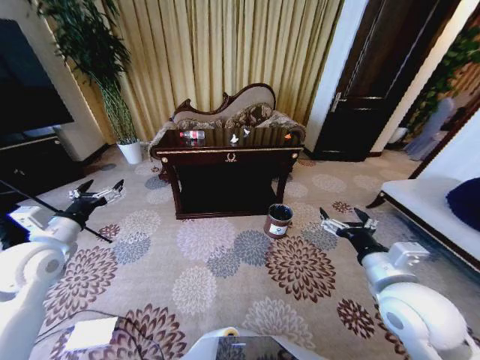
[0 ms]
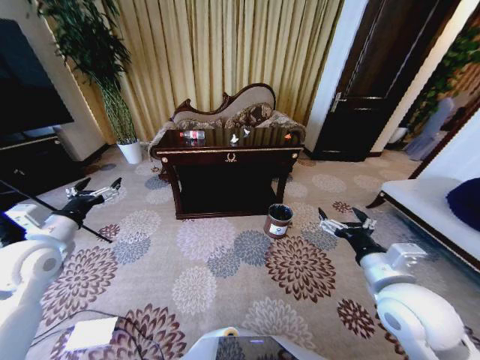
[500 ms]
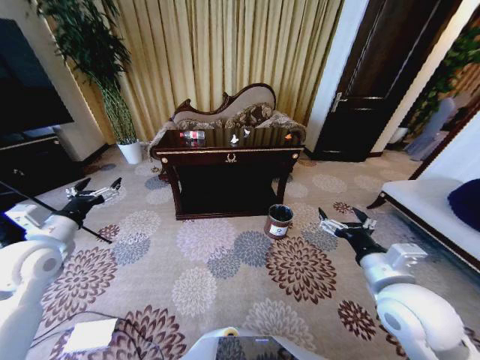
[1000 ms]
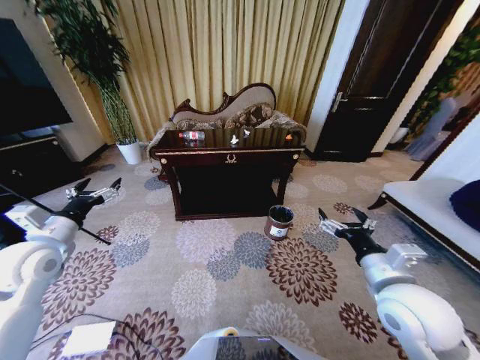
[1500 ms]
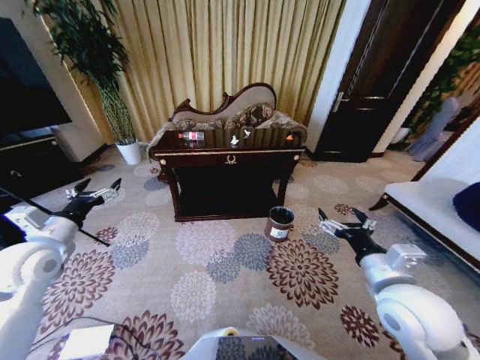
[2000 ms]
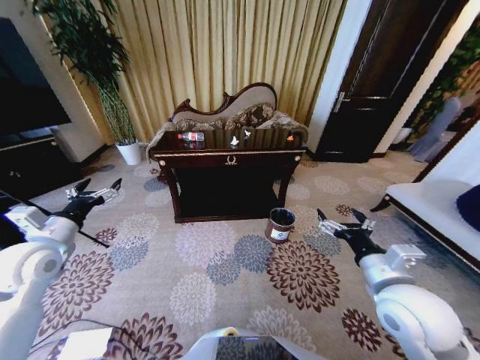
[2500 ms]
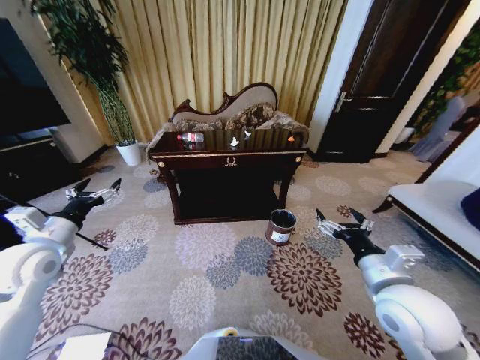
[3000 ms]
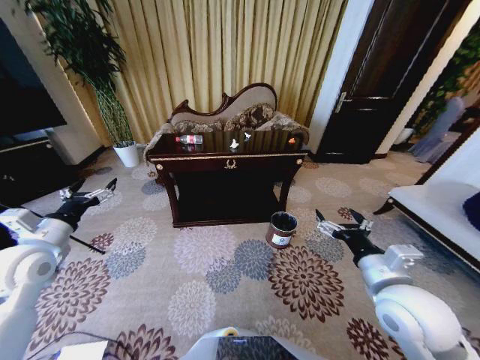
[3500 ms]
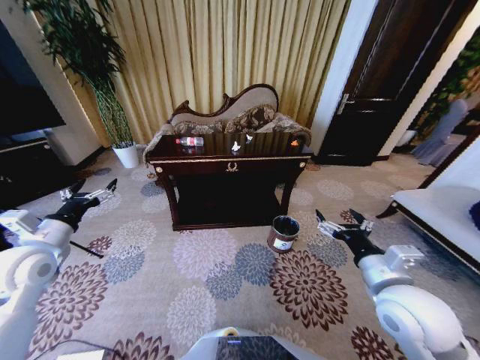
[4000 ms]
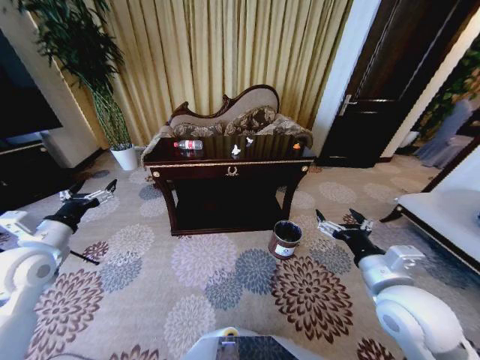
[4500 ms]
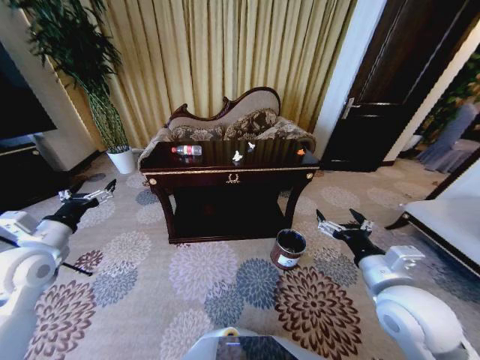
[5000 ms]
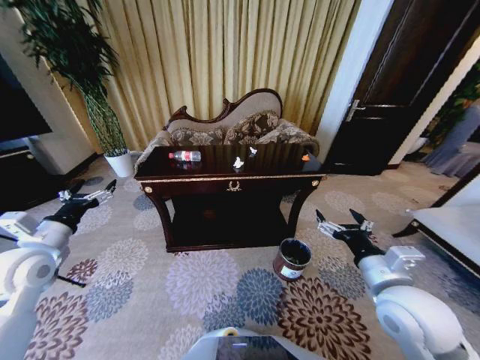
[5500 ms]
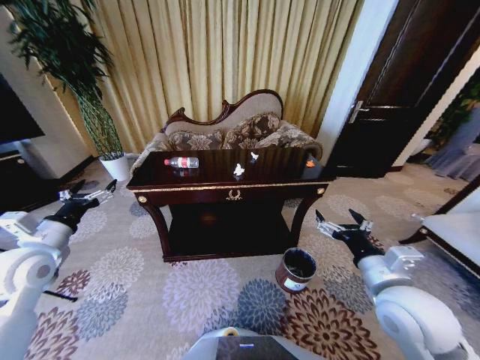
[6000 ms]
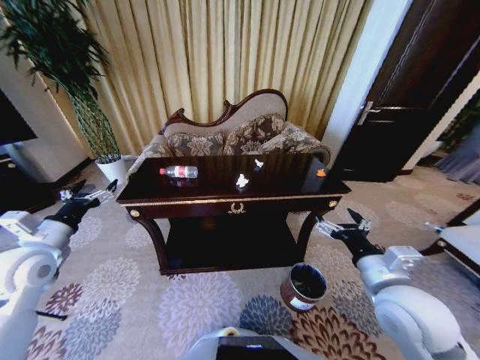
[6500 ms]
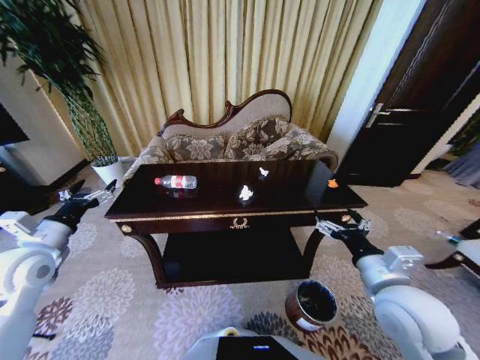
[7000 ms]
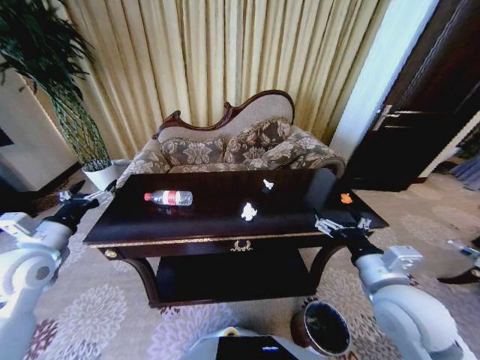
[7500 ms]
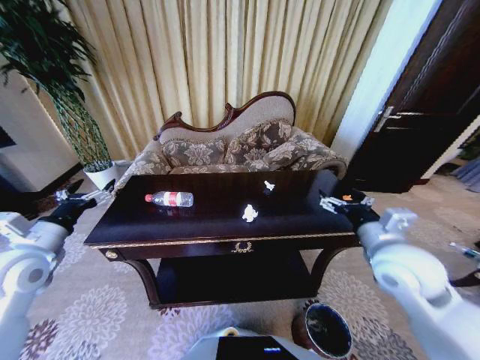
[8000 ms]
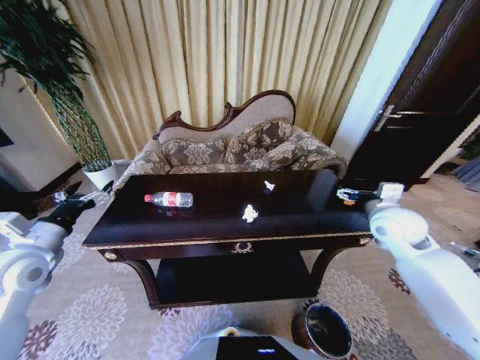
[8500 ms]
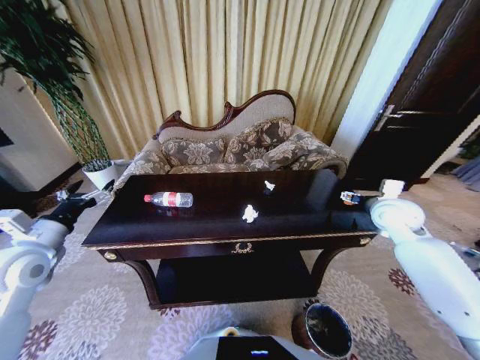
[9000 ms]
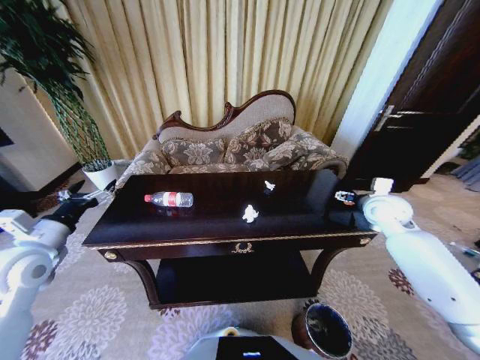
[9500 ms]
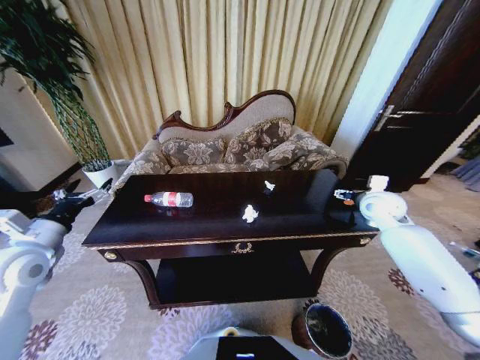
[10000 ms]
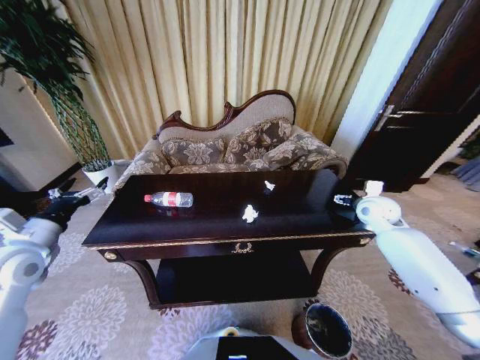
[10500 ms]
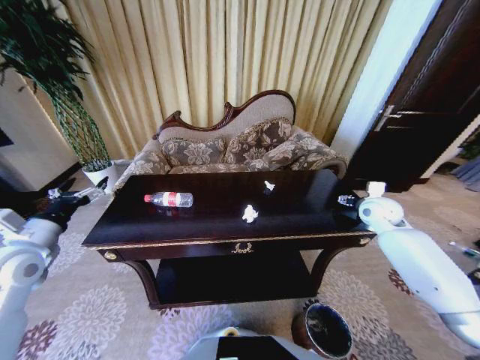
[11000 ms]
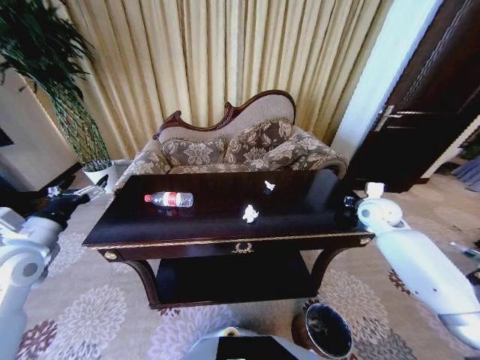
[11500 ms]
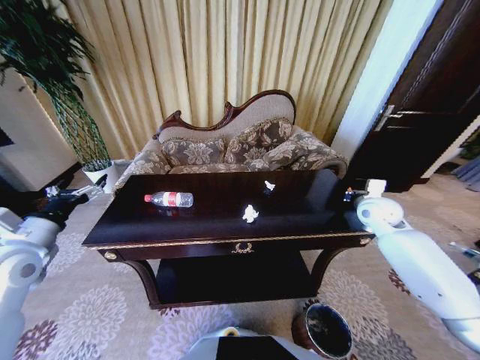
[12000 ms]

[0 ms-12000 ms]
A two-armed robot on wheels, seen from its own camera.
Task of the whole recording: Move to the front of the table and place the trash on the table into the trash bin.
6000 ms to 8000 ms: The right gripper is displaced forward by some 5 cm.
8000 ms to 10000 ms: The right gripper moves forward and to the right, about 20 cm.
10000 ms to 12000 ms: The right gripper closes up.

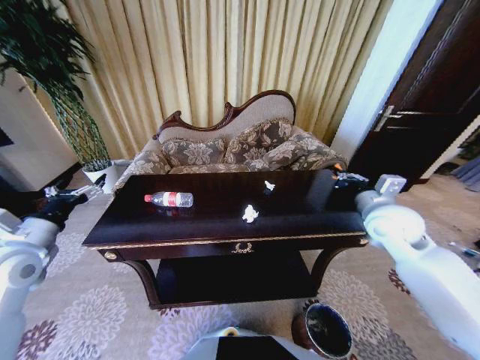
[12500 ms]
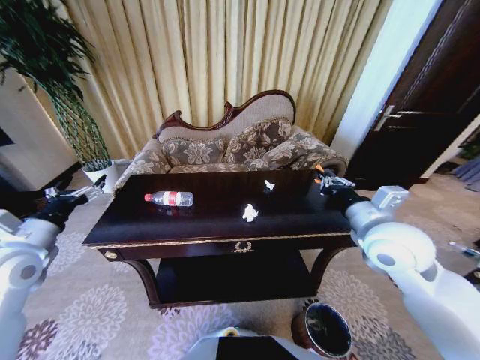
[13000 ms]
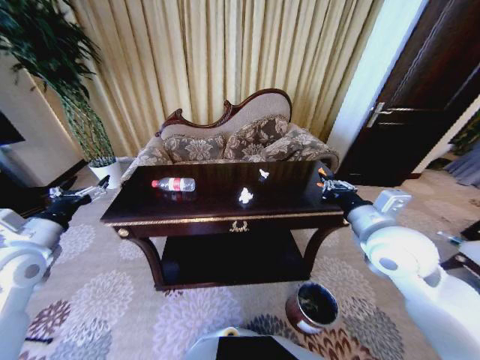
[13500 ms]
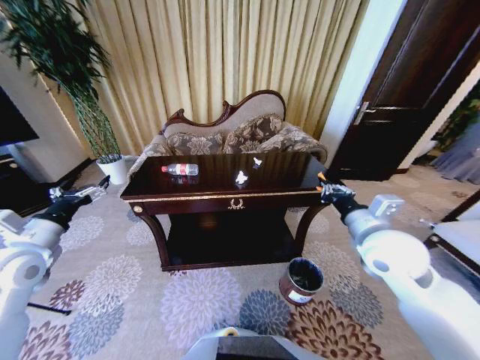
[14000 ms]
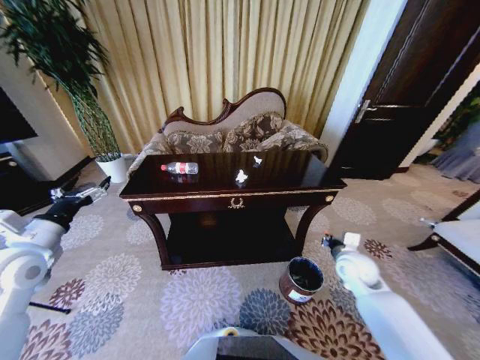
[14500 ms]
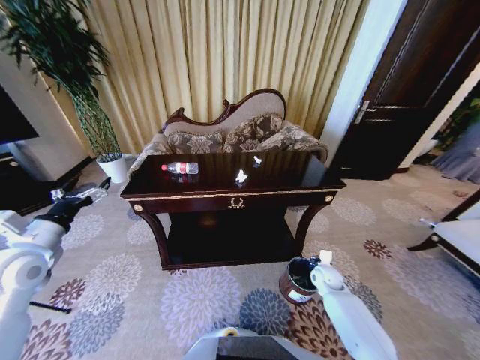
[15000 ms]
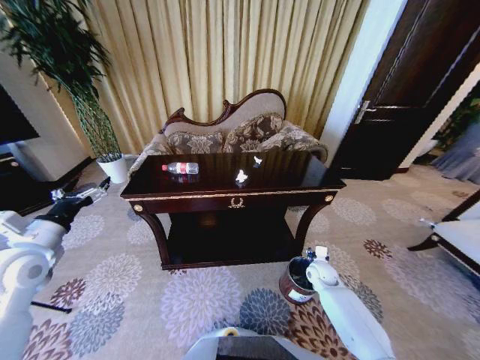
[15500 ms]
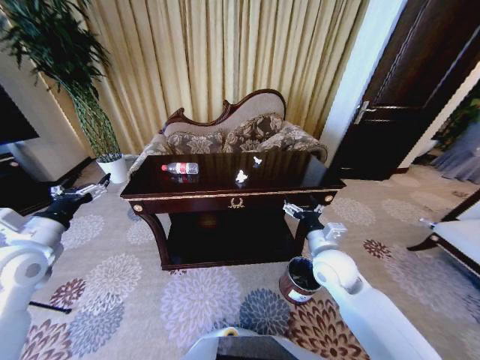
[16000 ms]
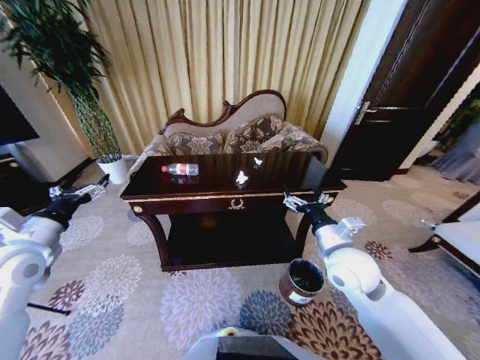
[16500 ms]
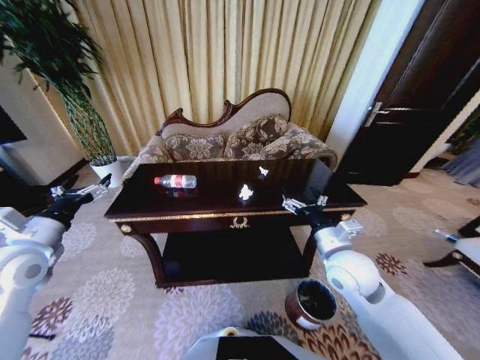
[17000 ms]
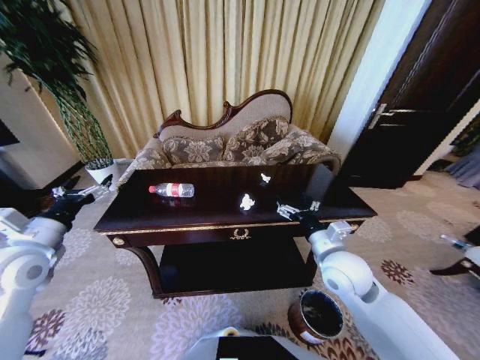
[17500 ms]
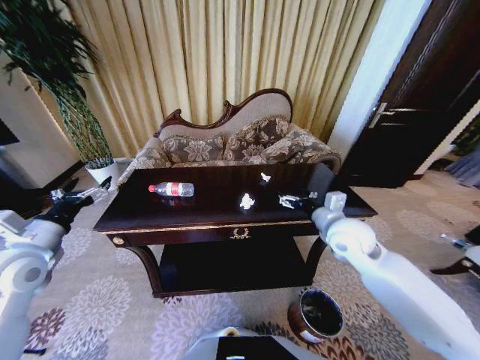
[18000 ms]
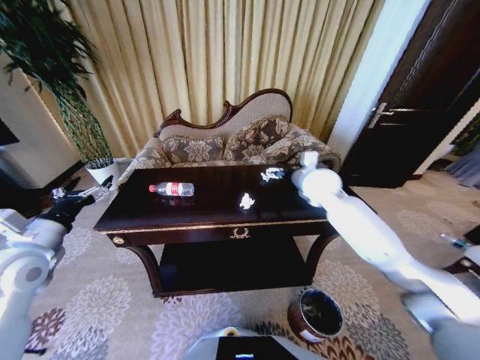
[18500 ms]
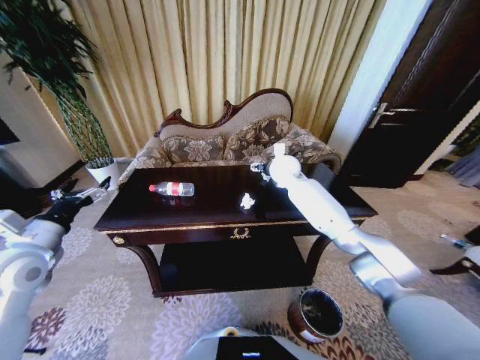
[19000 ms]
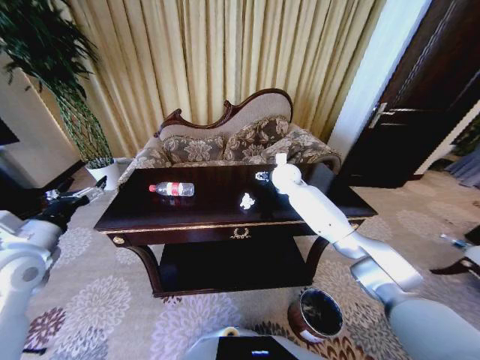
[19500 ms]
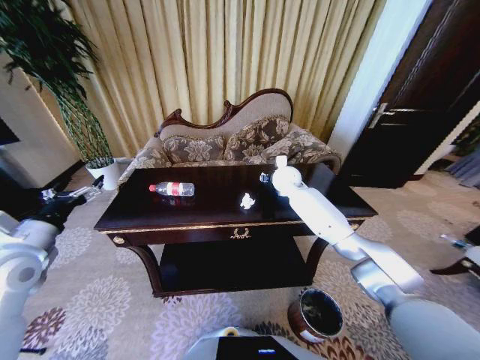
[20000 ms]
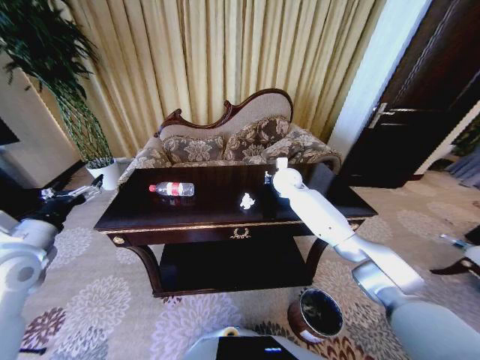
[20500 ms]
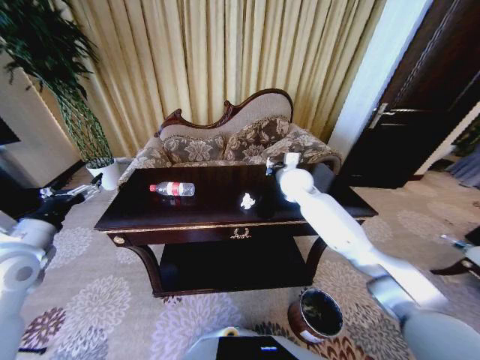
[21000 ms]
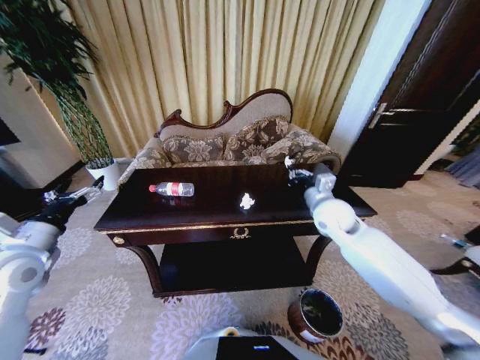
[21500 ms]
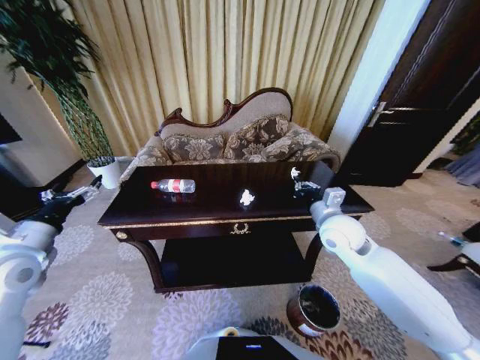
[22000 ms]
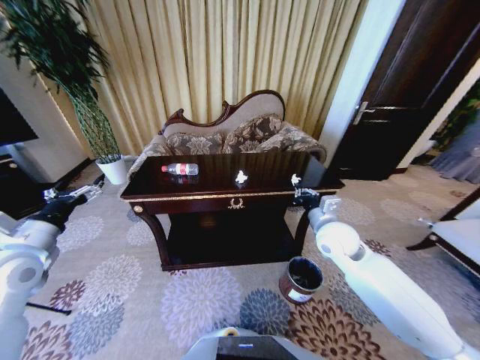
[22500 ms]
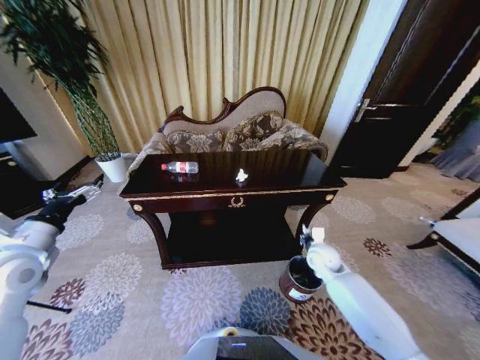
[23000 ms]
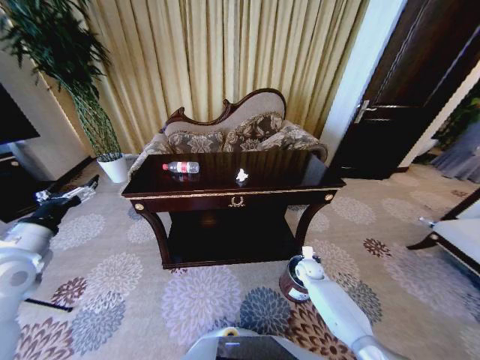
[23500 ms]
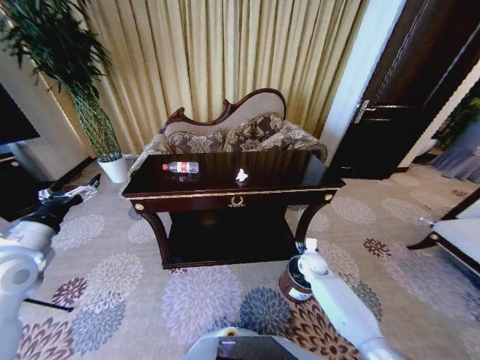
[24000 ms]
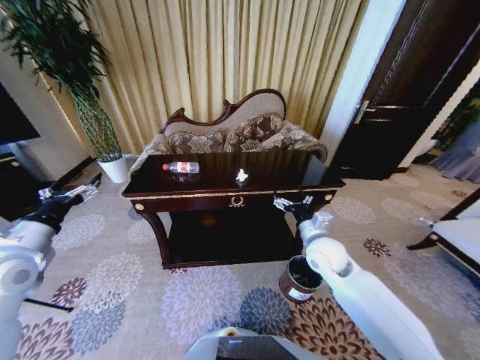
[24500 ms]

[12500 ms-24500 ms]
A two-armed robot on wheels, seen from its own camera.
Task of the whole recording: Move to the front of the table and place the trash on the table into the trash bin.
12500 ms to 14500 ms: The right gripper shifts roughly 20 cm downward.
14500 ms to 16500 ms: The right gripper travels upward and to the left by roughly 15 cm, and opens.
16500 ms to 18500 ms: The right gripper moves forward, approximately 20 cm.
18500 ms to 20500 ms: The right gripper shifts about 15 cm forward, downward and to the left, and closes up.
20500 ms to 22500 ms: The right gripper goes roughly 25 cm backward.
22500 ms to 24500 ms: The right gripper goes downward and returns, roughly 30 cm each way, and opens.

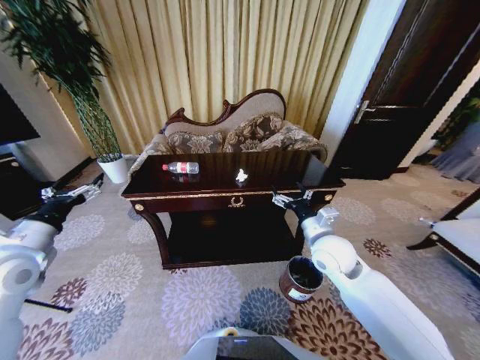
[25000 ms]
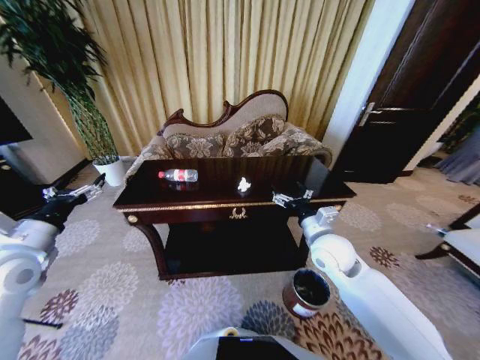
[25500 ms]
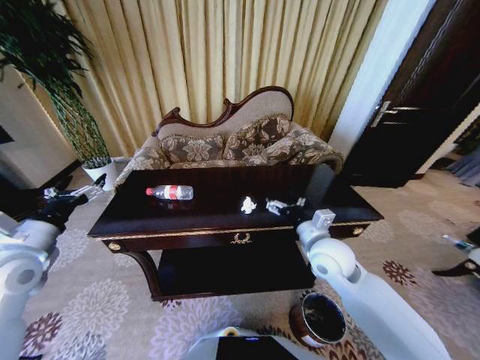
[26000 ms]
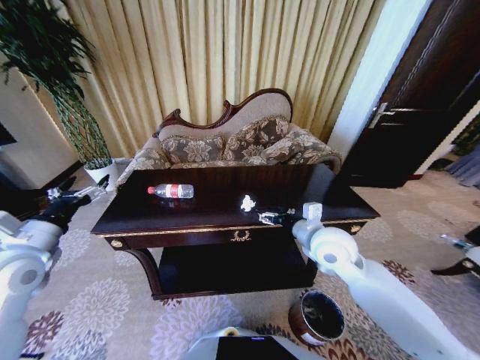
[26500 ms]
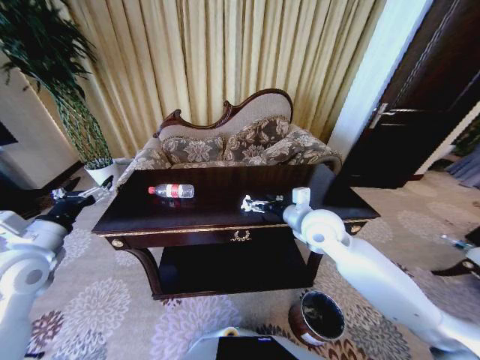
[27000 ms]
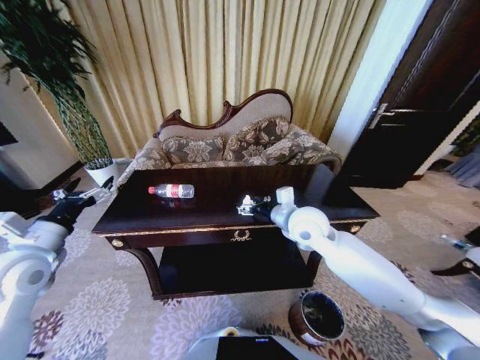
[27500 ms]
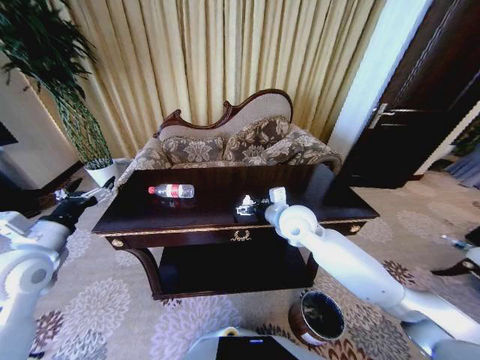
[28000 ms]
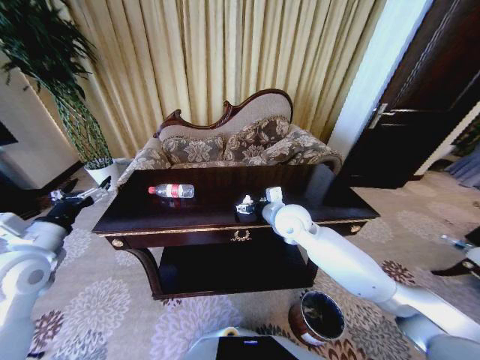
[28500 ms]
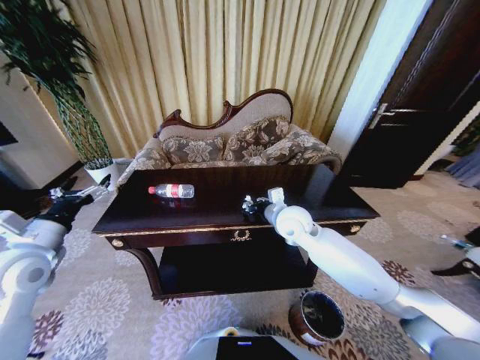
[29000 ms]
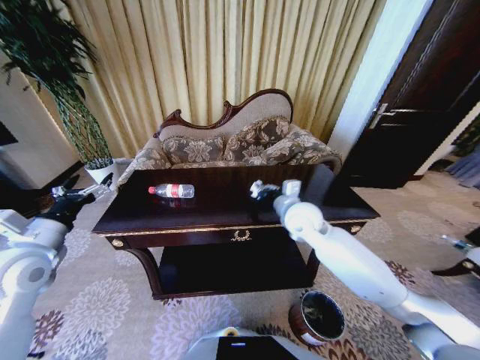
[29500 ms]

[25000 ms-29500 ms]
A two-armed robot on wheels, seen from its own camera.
Task of the whole recording: Move to the front of the table and place the trash on the table into the trash bin.
25000 ms to 27000 ms: The right gripper shifts about 5 cm upward.
27000 ms to 29500 ms: The right gripper closes up.
